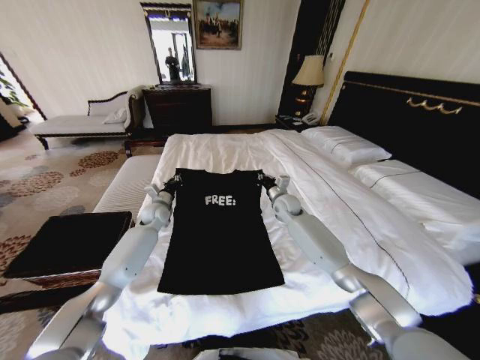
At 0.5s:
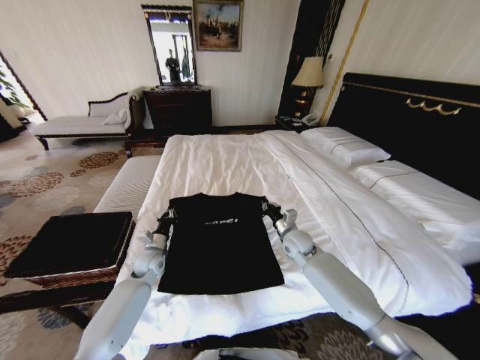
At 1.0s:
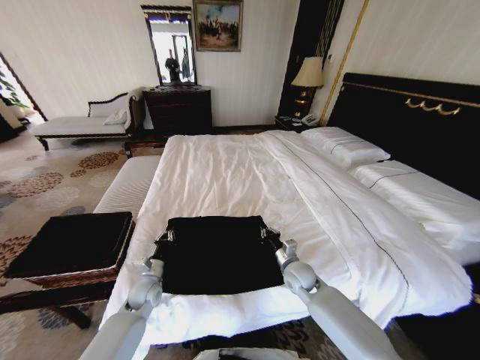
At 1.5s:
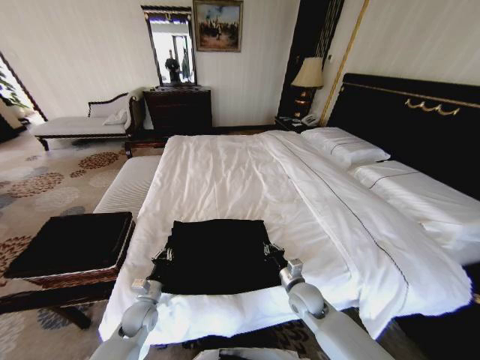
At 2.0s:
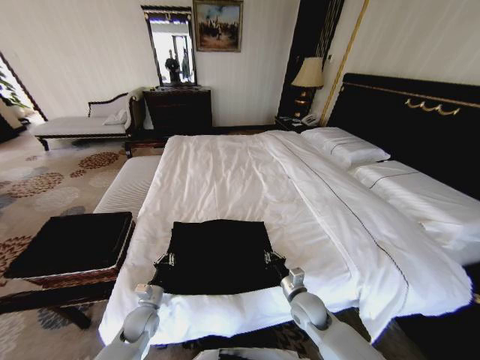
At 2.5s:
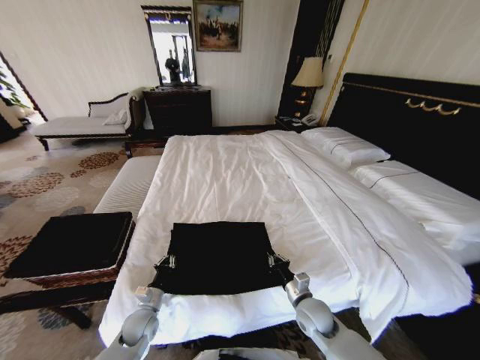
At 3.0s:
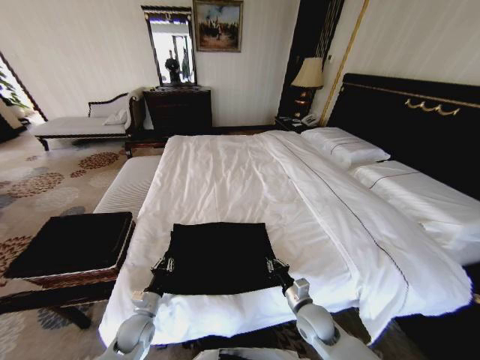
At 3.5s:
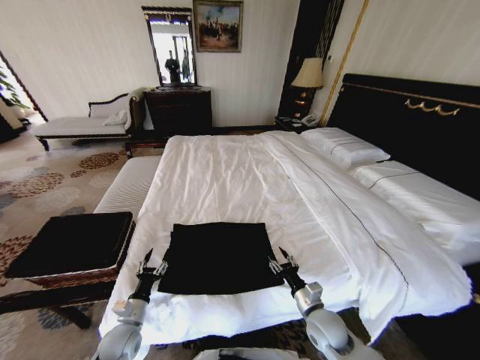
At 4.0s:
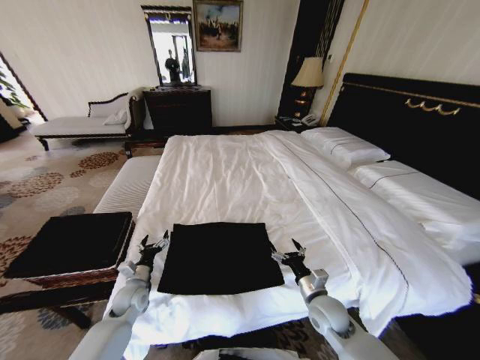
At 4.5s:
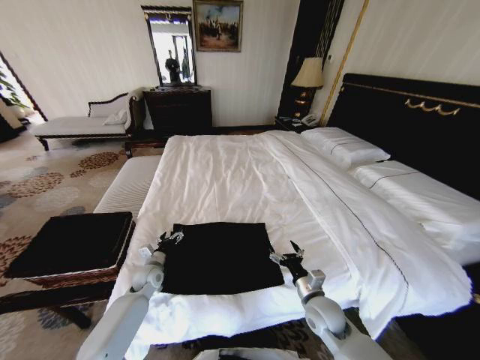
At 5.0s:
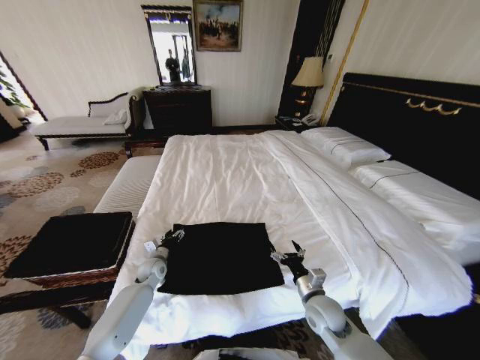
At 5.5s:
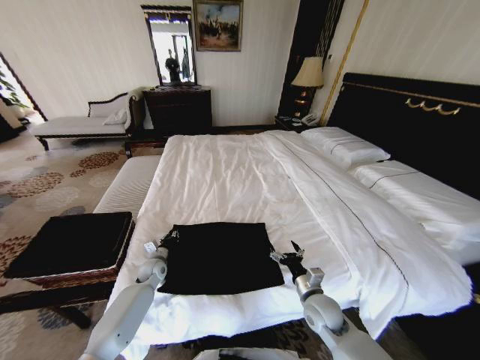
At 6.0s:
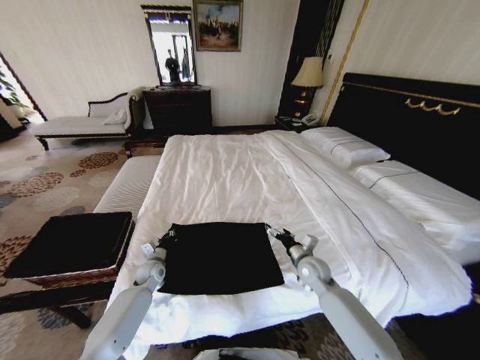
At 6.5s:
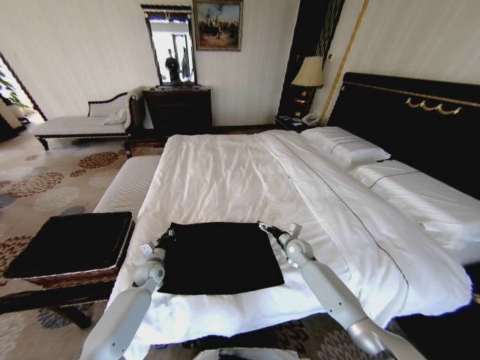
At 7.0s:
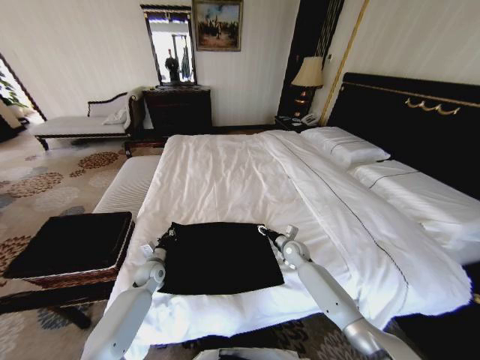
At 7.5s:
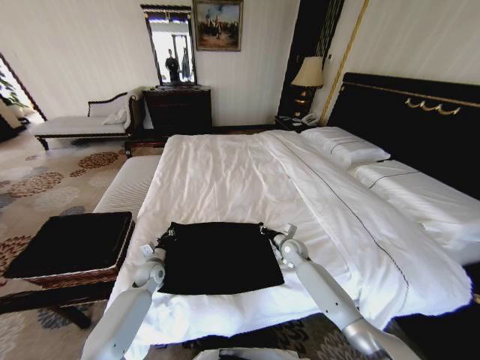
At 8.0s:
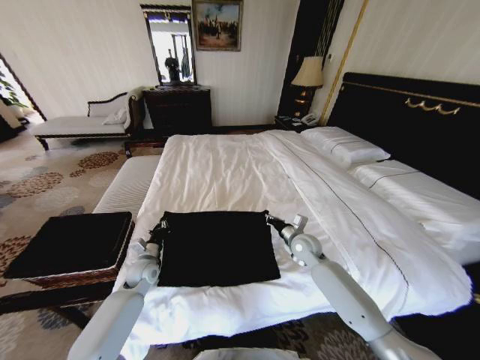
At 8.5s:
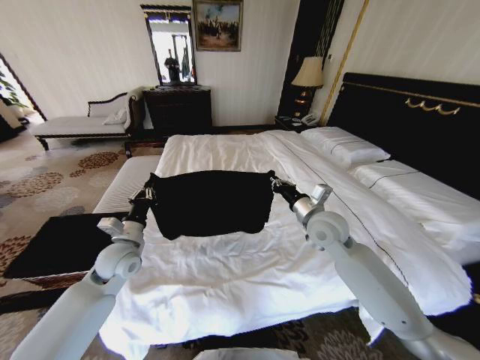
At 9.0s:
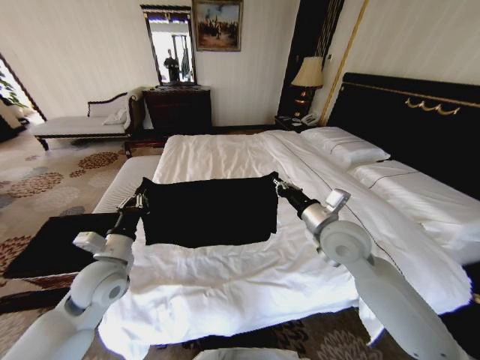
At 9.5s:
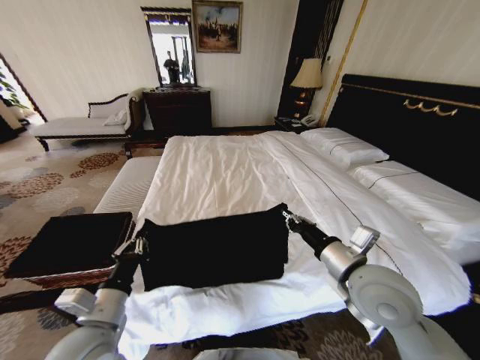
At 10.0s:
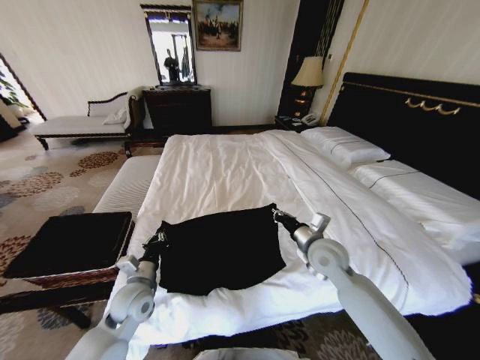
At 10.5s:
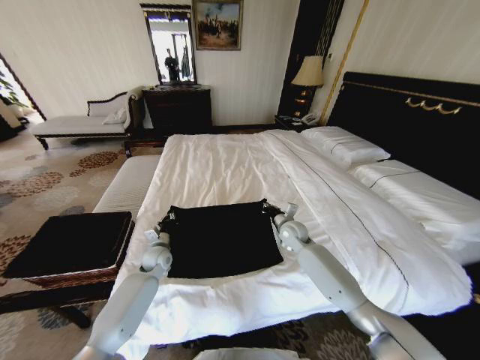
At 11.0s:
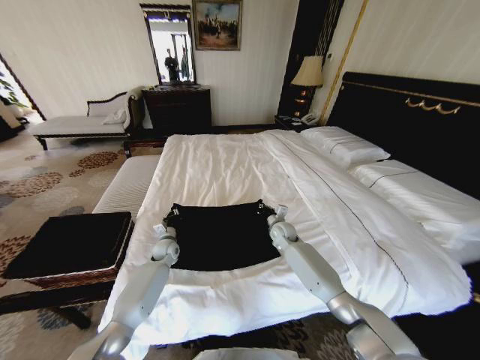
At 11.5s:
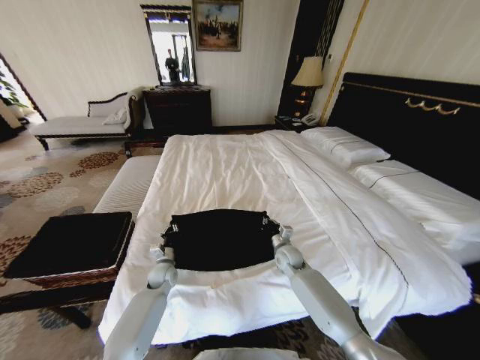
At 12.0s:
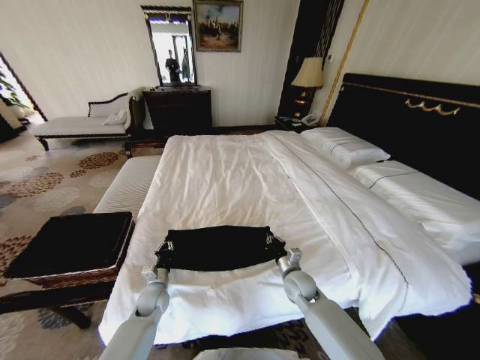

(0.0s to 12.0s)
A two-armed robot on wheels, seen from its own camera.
Task of the whole recording: Fold the clothes on the bed and place them into the basket.
0.0s - 2.0s: Both grippers travel together backward and downward, about 35 cm.
2.0s - 4.0s: The right gripper shifts by some 5 cm, and opens its fingers; the left gripper heads forward, covering some 5 cm, and opens.
4.0s - 6.0s: The grippers both shift forward by roughly 10 cm. The left gripper closes up.
6.0s - 8.0s: The right gripper goes some 10 cm forward, and closes up. The left gripper moves approximately 5 cm.
8.0s - 10.0s: The left gripper is displaced backward and upward by some 15 cm; the right gripper goes roughly 15 cm upward and backward.
10.0s - 12.0s: Both grippers travel together downward, some 15 cm. The left gripper goes forward and returns, about 20 cm each way.

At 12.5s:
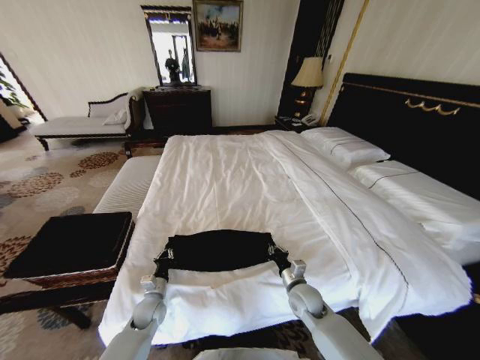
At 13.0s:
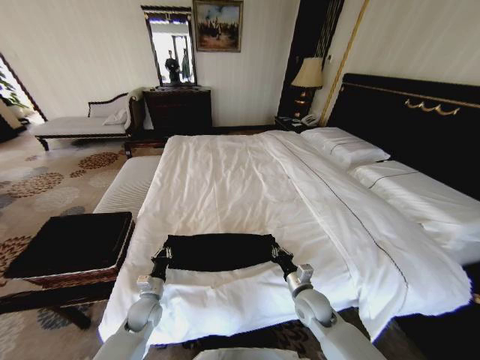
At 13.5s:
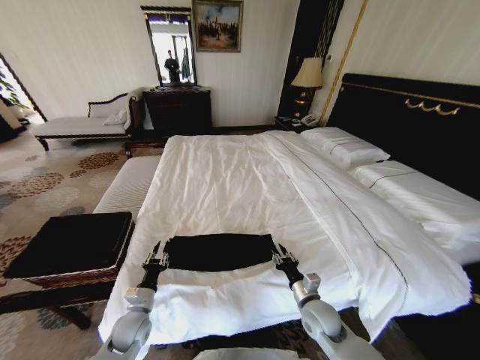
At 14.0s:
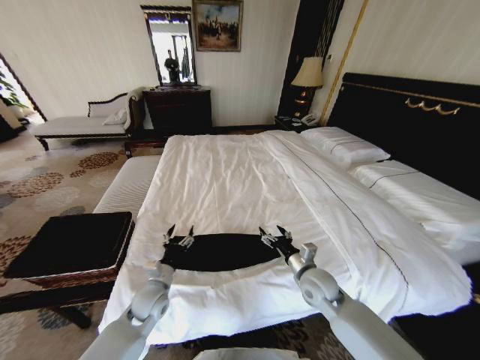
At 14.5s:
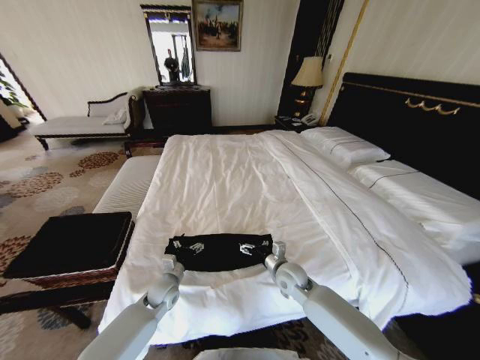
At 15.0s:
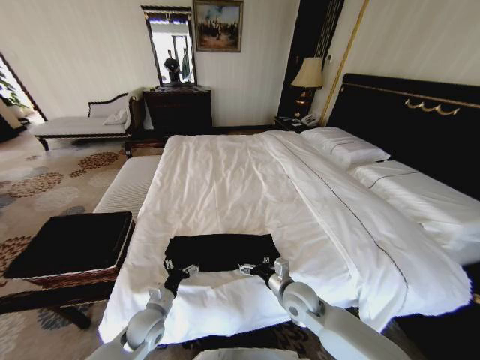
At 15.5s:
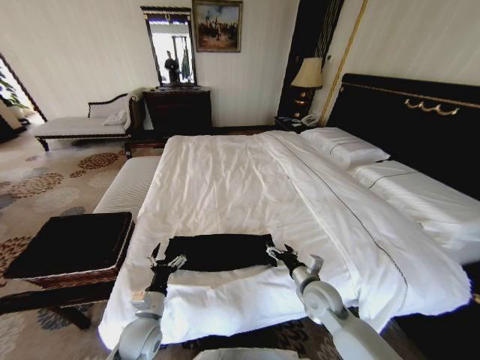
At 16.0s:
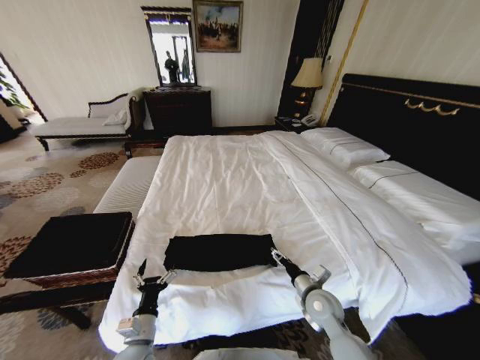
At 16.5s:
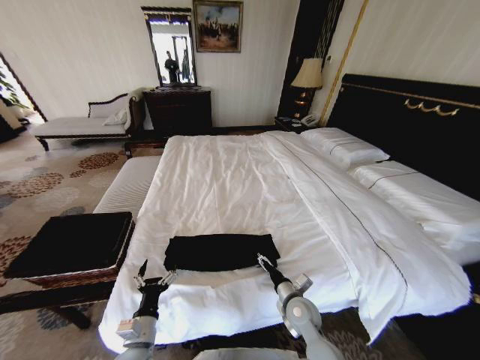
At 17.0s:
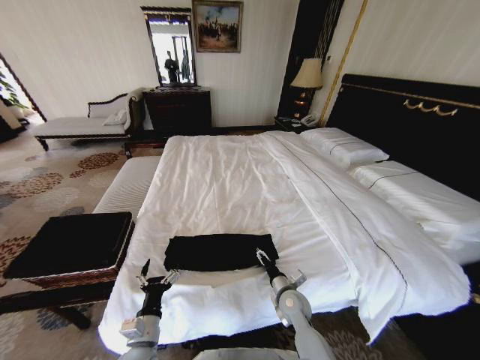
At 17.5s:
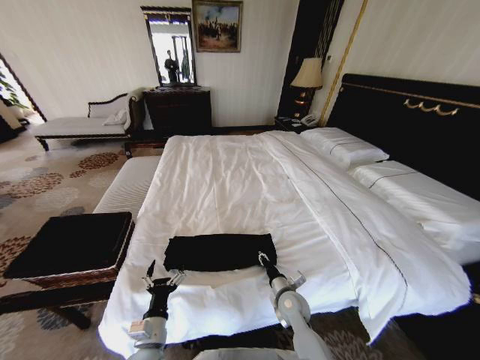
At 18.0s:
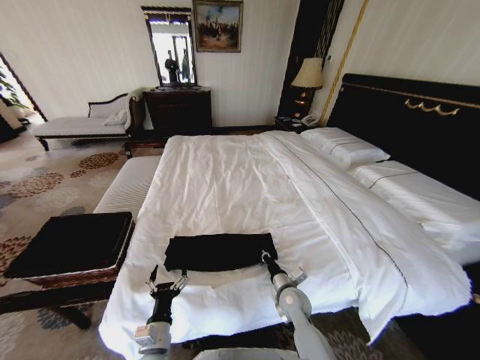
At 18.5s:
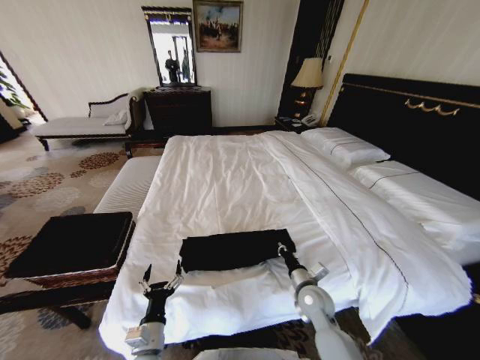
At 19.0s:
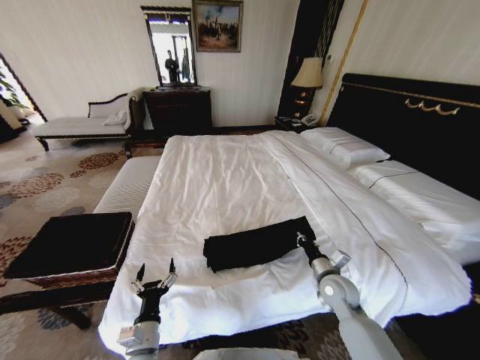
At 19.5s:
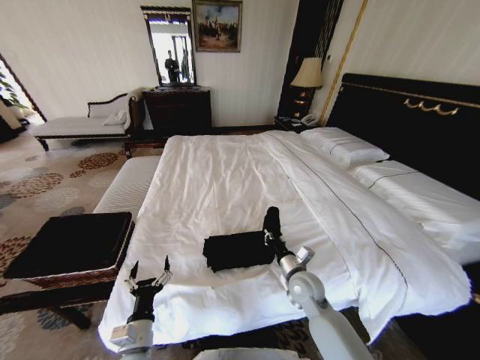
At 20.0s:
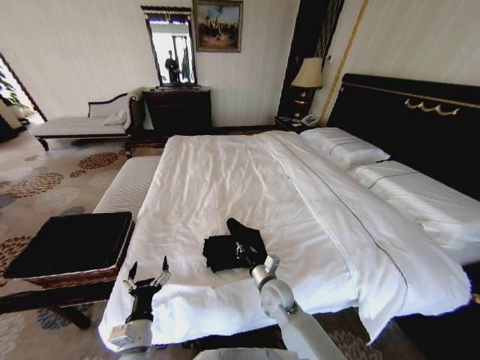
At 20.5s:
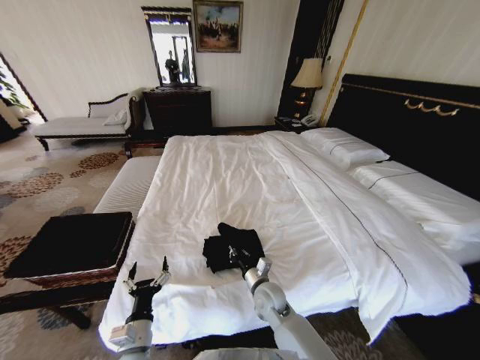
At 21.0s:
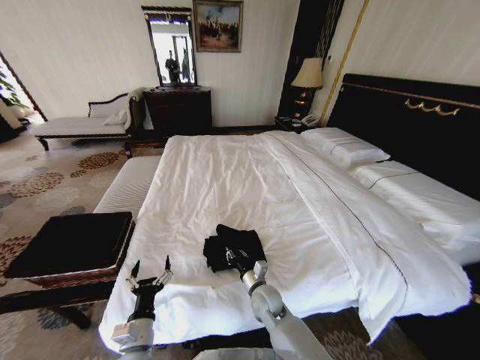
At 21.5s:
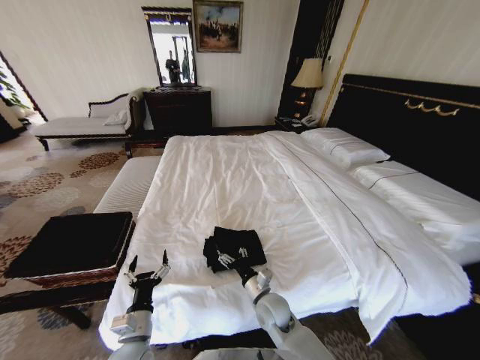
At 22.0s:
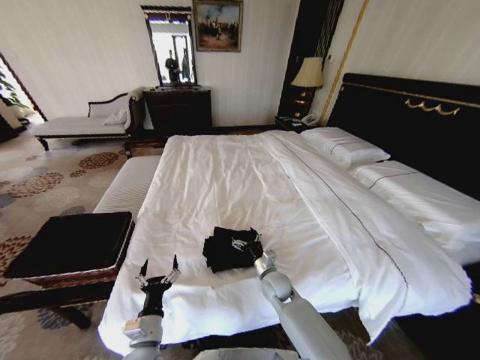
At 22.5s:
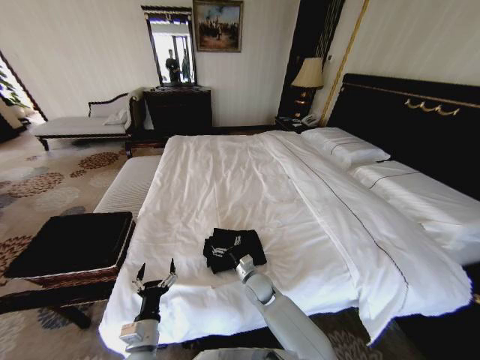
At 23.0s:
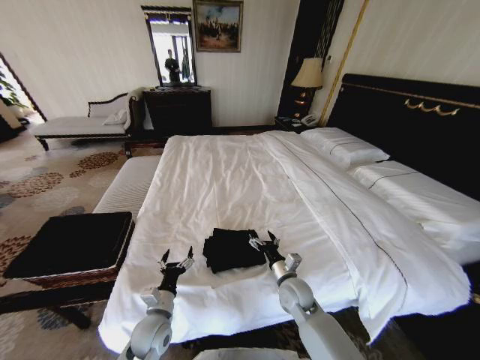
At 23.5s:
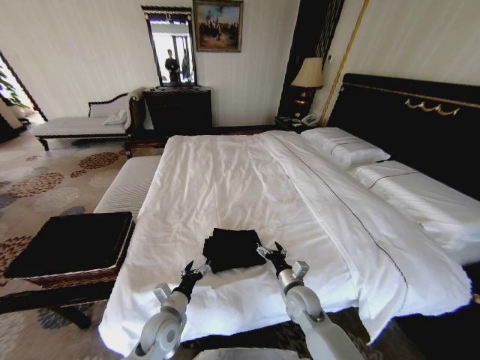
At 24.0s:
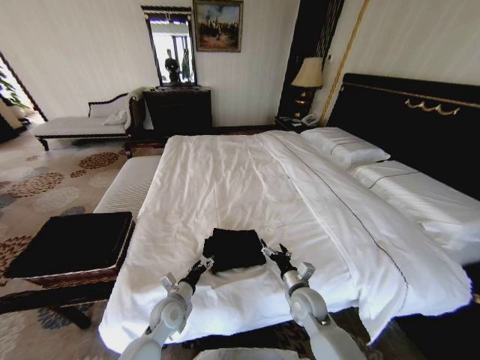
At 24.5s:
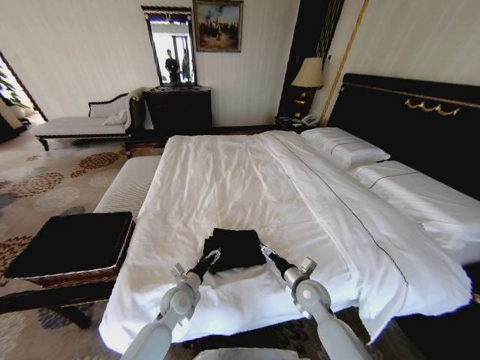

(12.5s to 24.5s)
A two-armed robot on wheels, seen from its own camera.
Task of the whole recording: Fold the clothes on the bed and place them into the basket.
12.5s - 14.5s: The left gripper shifts approximately 5 cm upward, and opens, while the right gripper shifts roughly 5 cm forward, and opens up.
14.5s - 16.5s: The right gripper shifts some 10 cm backward; the left gripper goes approximately 20 cm backward.
16.5s - 18.5s: The right gripper closes its fingers.
18.5s - 20.5s: The right gripper travels to the left by some 15 cm.
20.5s - 22.5s: The right gripper ends up about 5 cm from where it was, and opens its fingers.
22.5s - 24.5s: The left gripper is displaced forward by about 15 cm; the right gripper moves to the right, some 15 cm.

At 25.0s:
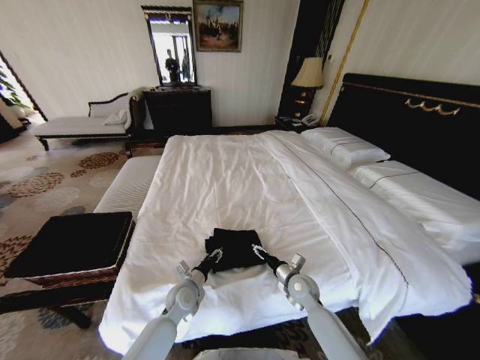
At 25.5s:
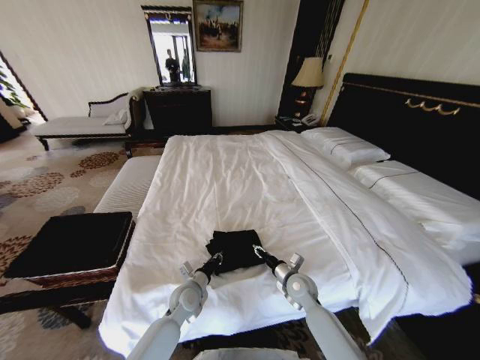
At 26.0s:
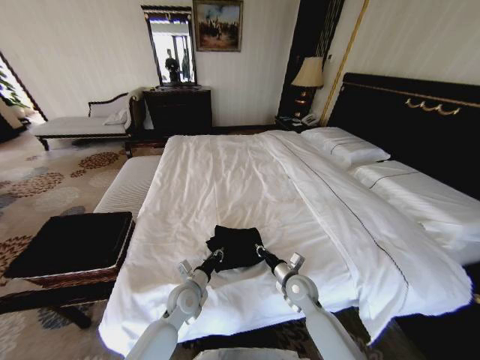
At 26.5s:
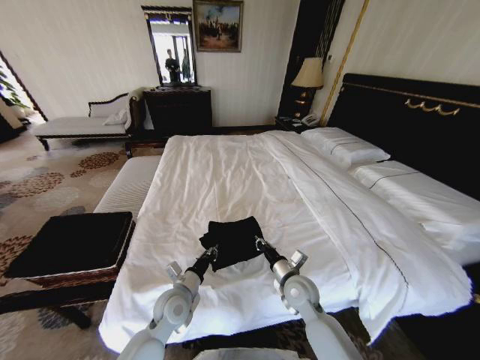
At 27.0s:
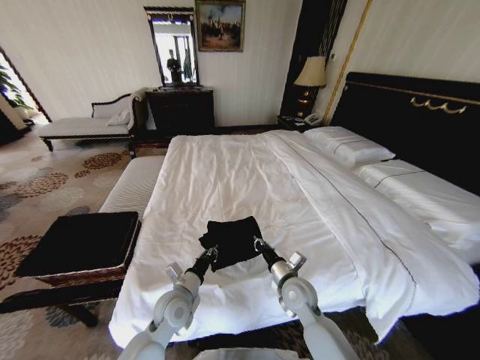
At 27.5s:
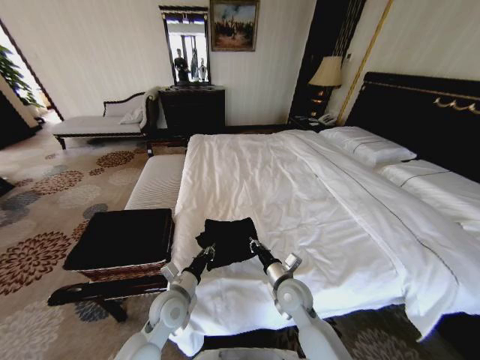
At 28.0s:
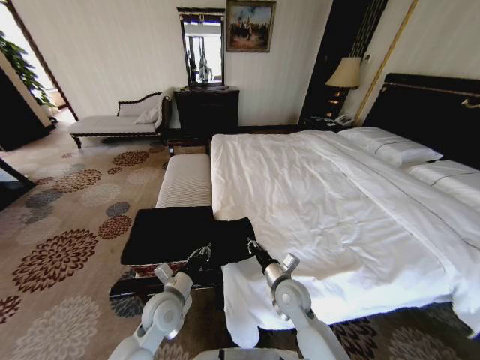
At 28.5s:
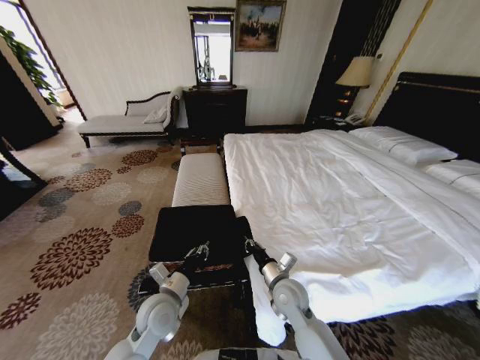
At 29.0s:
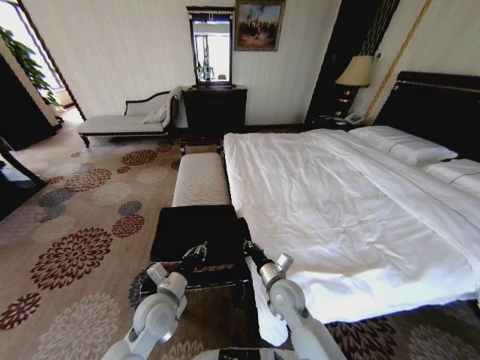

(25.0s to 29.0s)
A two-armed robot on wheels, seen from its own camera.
Task of the whole recording: Fold the clothes on the bed and place them into the basket.
25.0s - 27.0s: Both grippers move upward, some 5 cm. The right gripper closes its fingers, while the left gripper closes its fingers.
